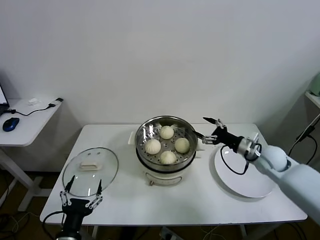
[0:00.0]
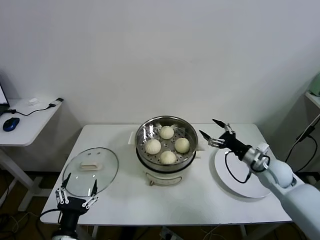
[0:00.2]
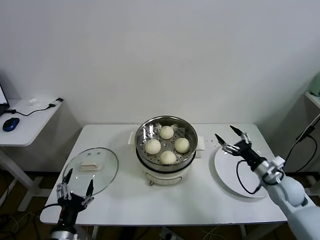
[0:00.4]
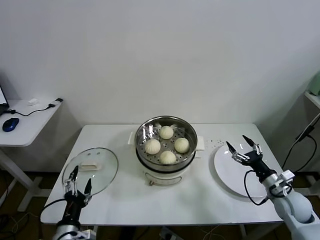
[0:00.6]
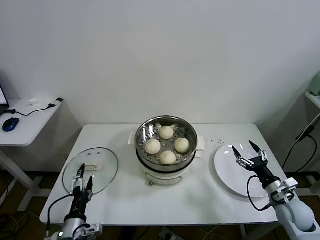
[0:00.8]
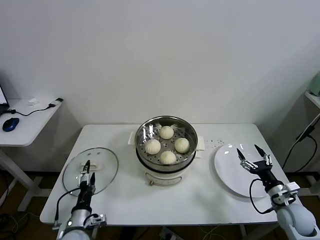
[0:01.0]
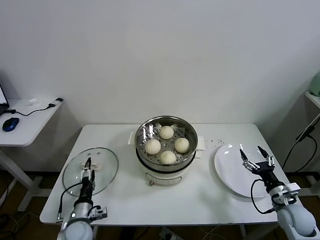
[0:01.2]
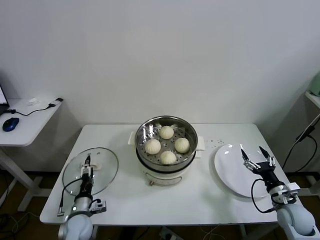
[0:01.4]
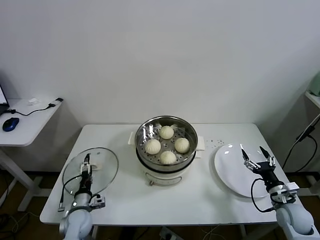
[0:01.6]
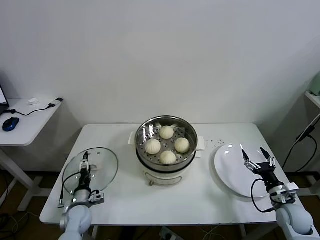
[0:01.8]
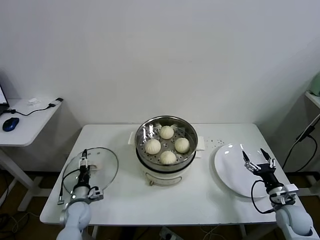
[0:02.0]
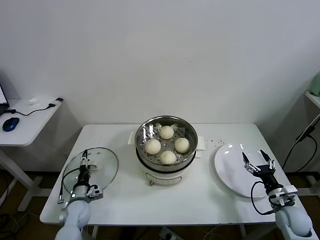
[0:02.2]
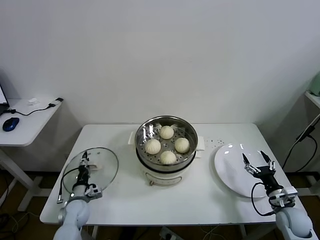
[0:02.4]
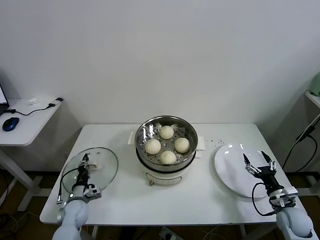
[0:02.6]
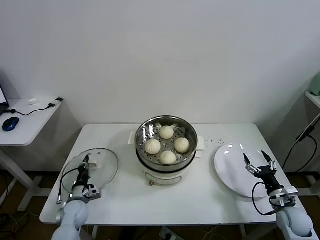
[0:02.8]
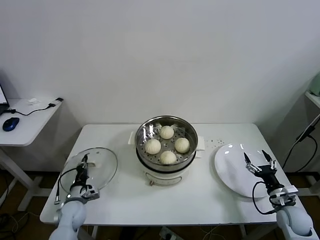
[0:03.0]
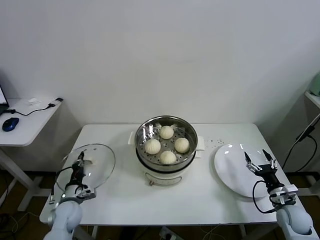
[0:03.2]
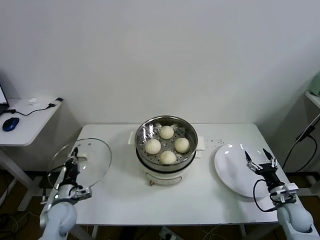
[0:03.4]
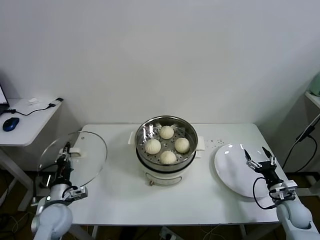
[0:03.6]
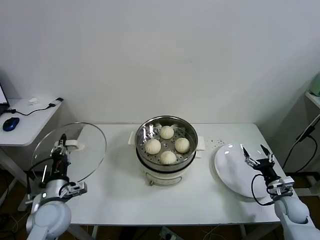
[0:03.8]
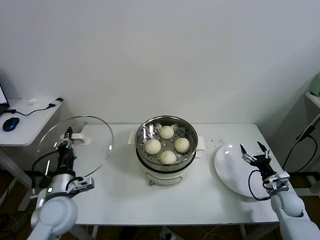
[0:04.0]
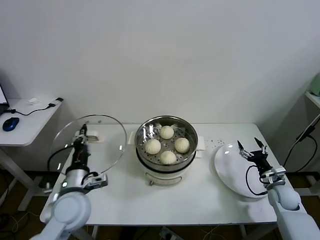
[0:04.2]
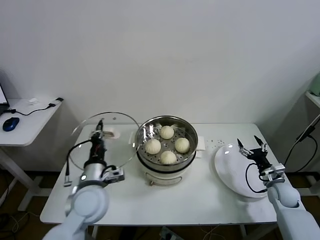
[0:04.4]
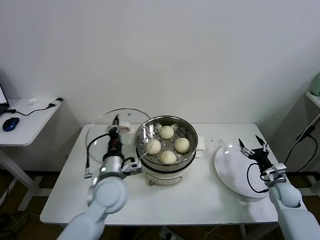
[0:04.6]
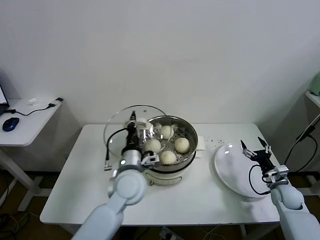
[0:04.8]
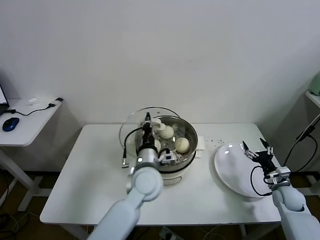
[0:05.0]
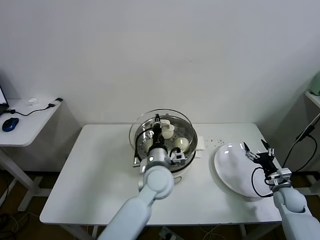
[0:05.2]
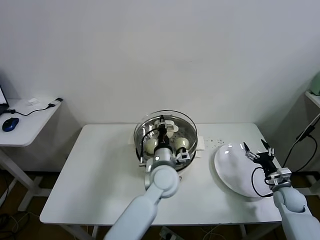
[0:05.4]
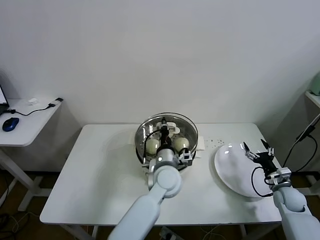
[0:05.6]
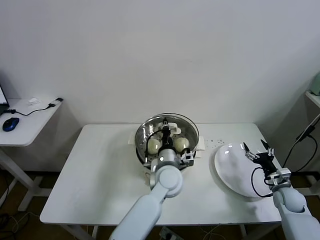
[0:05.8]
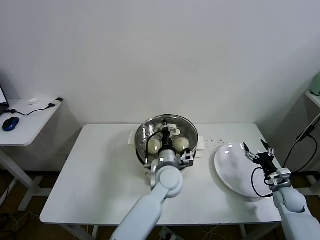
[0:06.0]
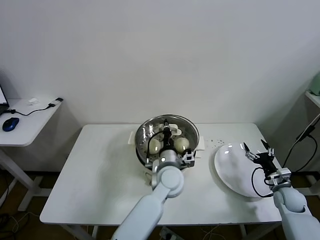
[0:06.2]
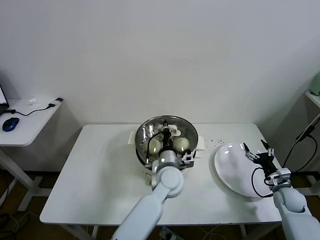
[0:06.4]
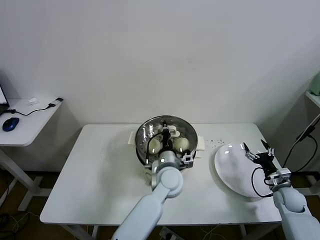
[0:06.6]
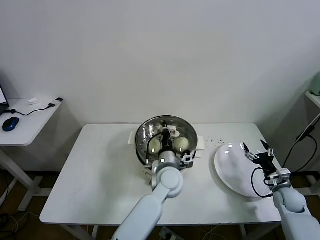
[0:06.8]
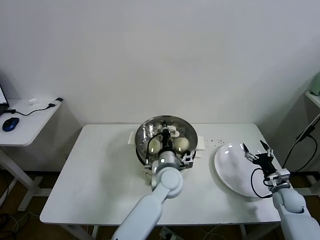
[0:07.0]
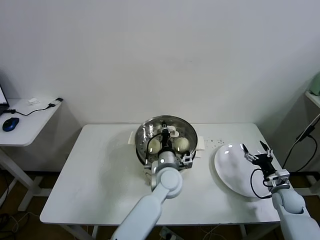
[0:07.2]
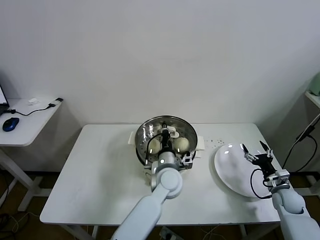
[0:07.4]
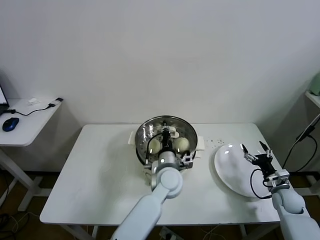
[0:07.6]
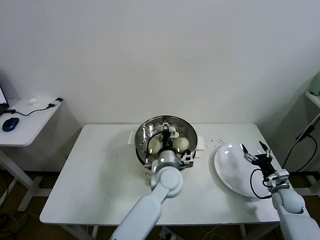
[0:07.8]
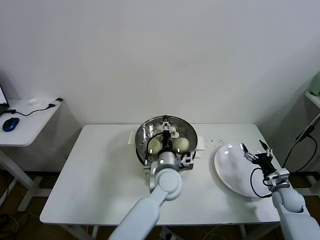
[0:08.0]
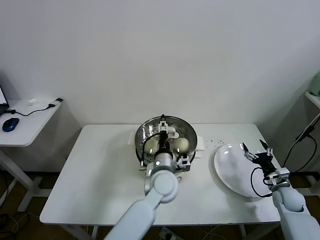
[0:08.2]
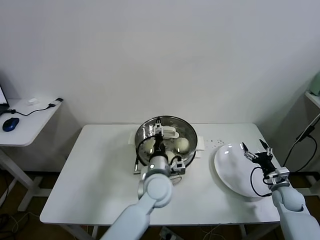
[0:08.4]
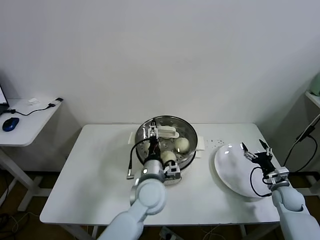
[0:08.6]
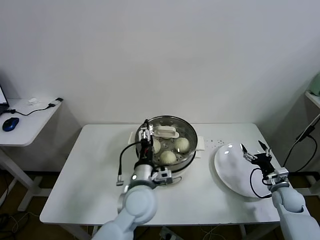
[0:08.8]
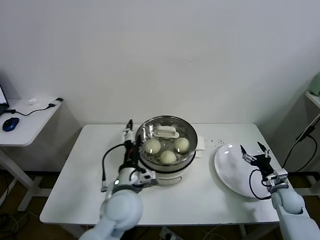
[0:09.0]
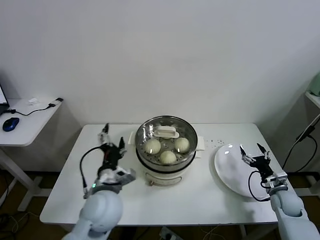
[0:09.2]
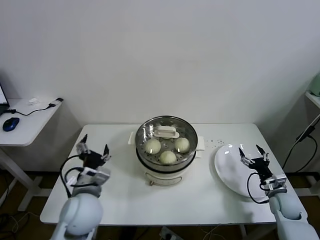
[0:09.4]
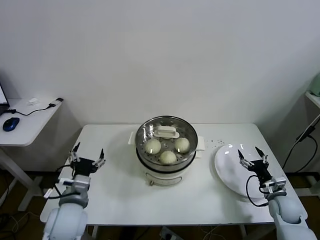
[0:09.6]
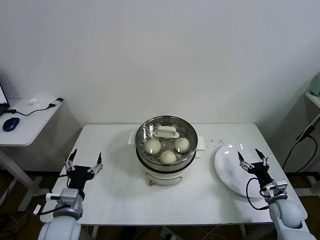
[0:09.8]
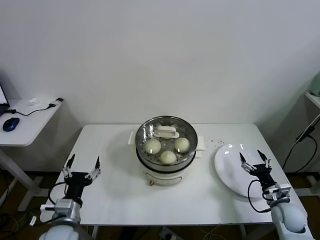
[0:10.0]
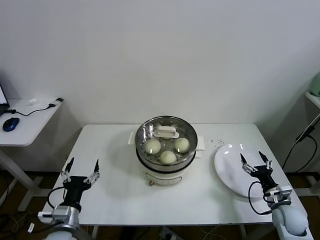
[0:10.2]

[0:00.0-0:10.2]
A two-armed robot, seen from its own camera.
Task of the whole recording: take steamed baozi put them in steamer.
Step, 0:00.0 to 0:02.8: Grasp the pot lid with left gripper.
Step, 0:03.0 to 0:08.0: Place the pot lid on the steamer with left gripper.
0:00.0 to 0:01.4: The right gripper heads backward, downward and to the right, covering some 20 cm, while the left gripper moves forward and downward, approximately 20 cm.
0:01.4 to 0:03.0: The left gripper moves forward, roughly 5 cm, and closes its fingers.
0:03.0 to 0:04.4: The left gripper goes some 25 cm upward and to the right; the right gripper goes some 10 cm forward.
0:04.4 to 0:05.8: The left gripper goes some 25 cm to the right.
0:05.8 to 0:07.2: The grippers make only small movements.
0:07.2 to 0:08.8: The left gripper travels backward and to the left by approximately 10 cm, and opens.
0:08.8 to 0:10.2: The left gripper shifts approximately 25 cm to the left and backward, while the right gripper is displaced backward by roughly 5 cm.

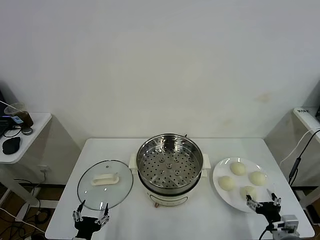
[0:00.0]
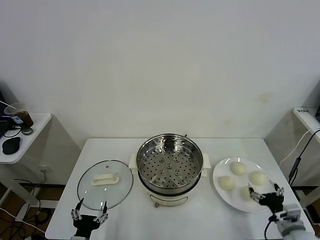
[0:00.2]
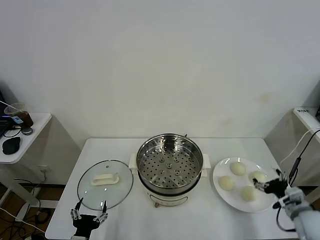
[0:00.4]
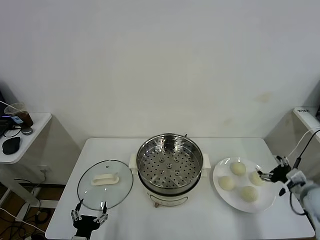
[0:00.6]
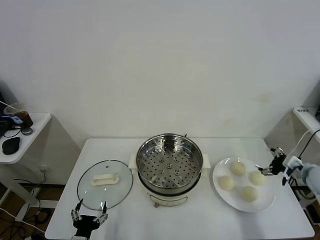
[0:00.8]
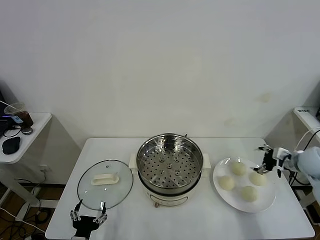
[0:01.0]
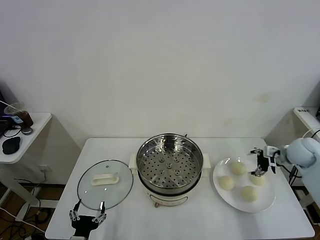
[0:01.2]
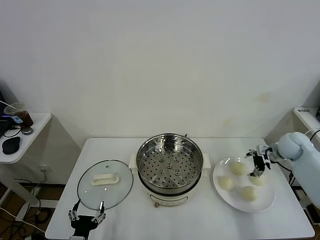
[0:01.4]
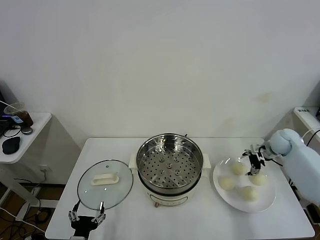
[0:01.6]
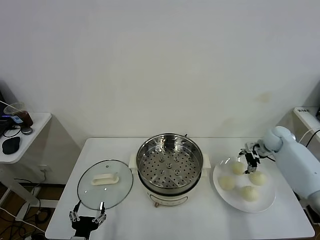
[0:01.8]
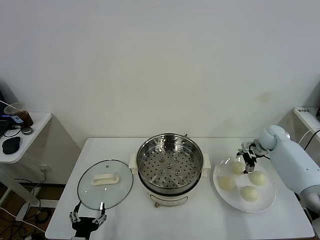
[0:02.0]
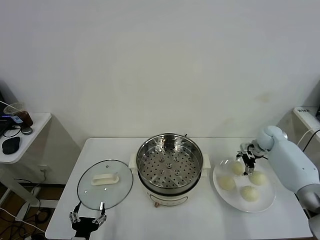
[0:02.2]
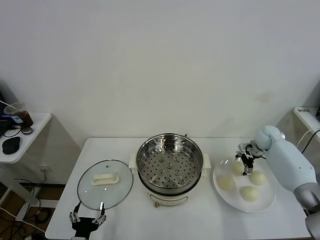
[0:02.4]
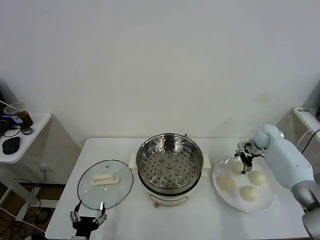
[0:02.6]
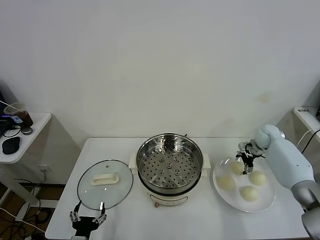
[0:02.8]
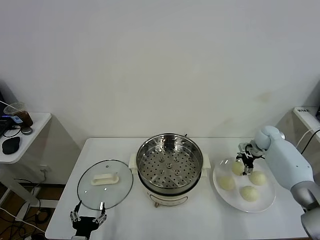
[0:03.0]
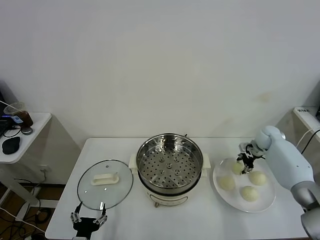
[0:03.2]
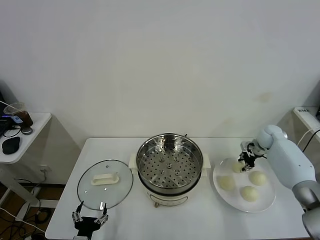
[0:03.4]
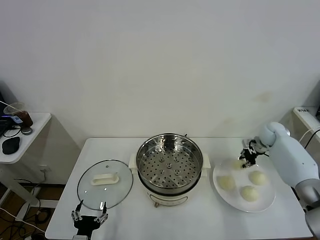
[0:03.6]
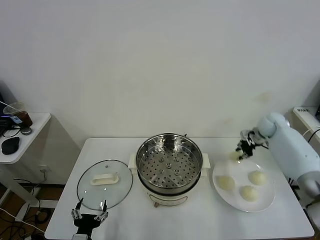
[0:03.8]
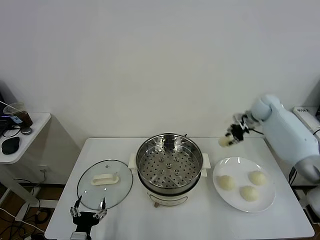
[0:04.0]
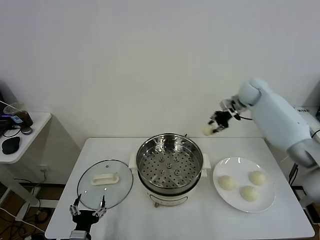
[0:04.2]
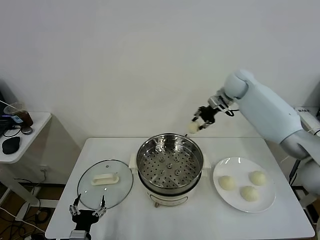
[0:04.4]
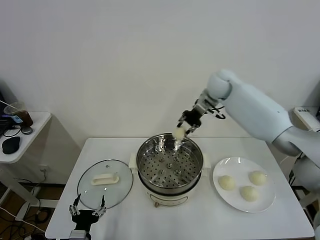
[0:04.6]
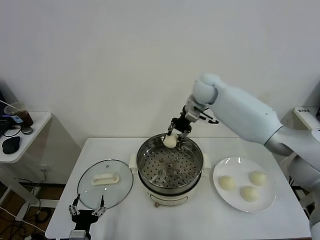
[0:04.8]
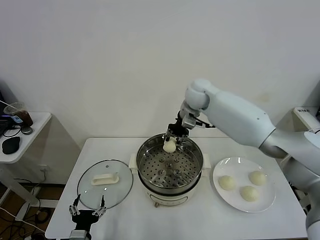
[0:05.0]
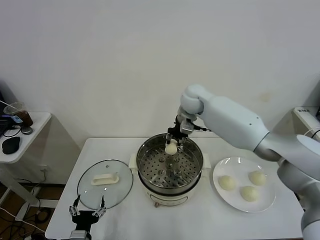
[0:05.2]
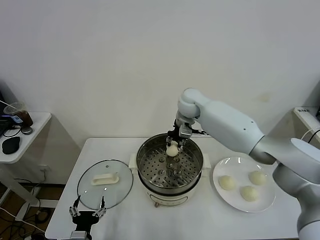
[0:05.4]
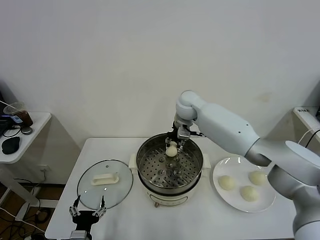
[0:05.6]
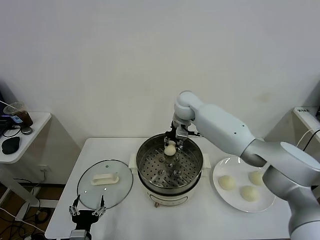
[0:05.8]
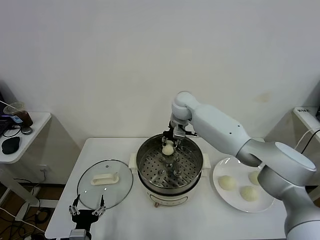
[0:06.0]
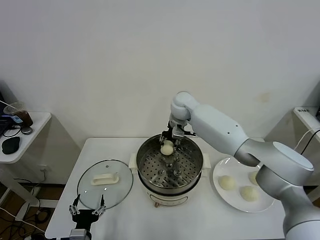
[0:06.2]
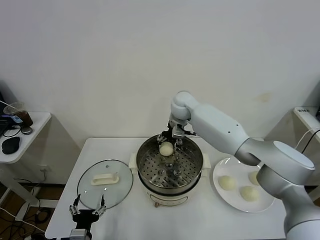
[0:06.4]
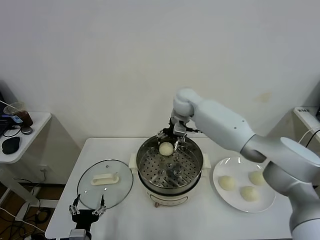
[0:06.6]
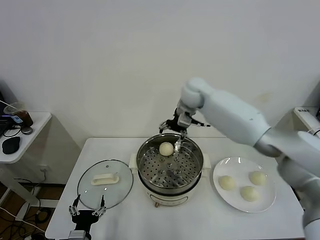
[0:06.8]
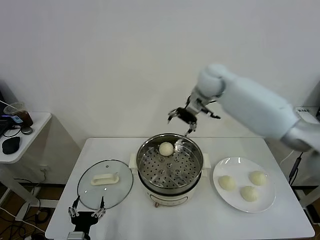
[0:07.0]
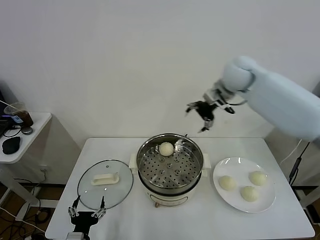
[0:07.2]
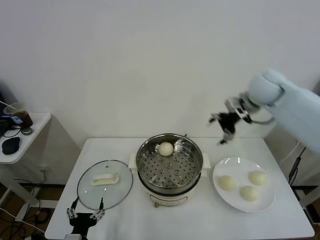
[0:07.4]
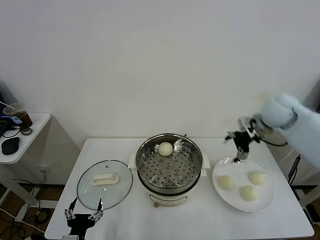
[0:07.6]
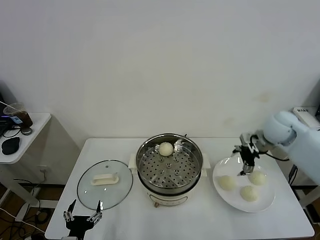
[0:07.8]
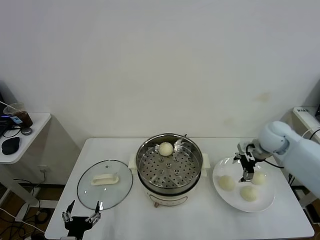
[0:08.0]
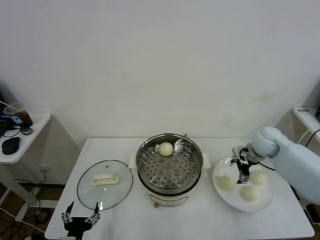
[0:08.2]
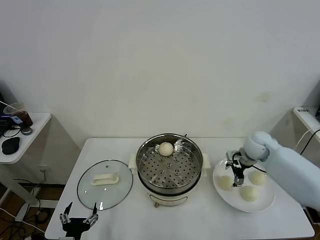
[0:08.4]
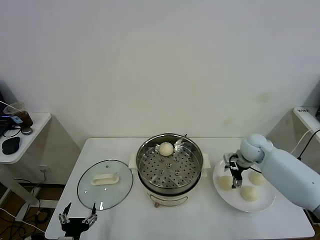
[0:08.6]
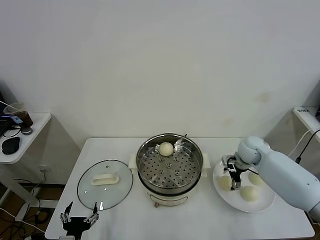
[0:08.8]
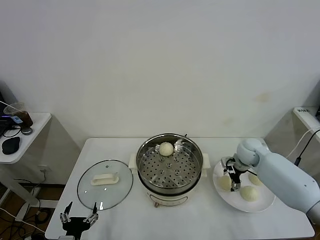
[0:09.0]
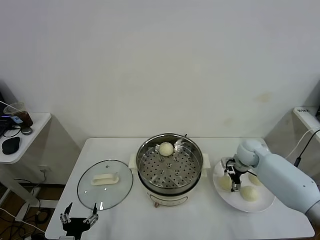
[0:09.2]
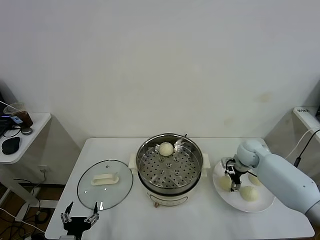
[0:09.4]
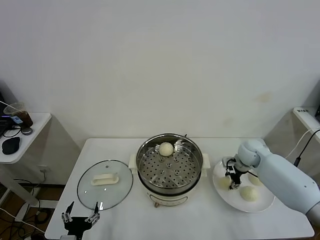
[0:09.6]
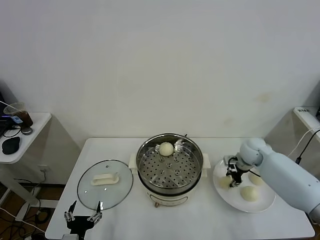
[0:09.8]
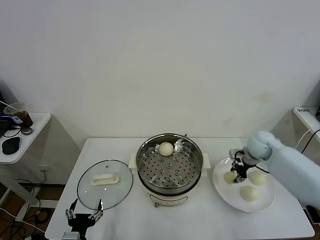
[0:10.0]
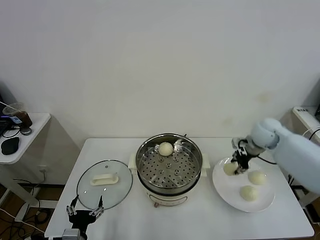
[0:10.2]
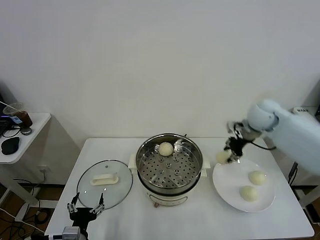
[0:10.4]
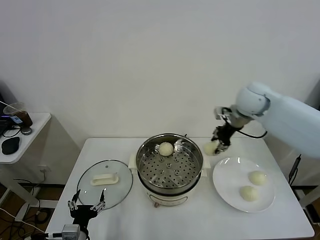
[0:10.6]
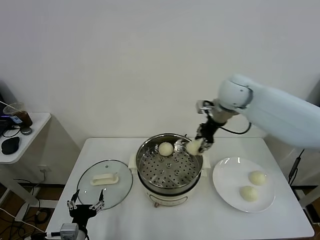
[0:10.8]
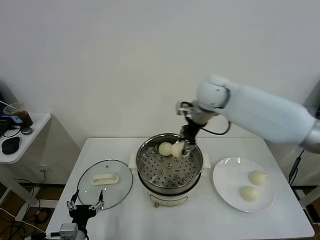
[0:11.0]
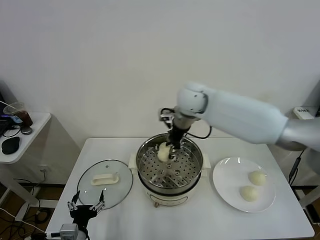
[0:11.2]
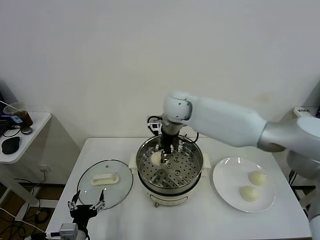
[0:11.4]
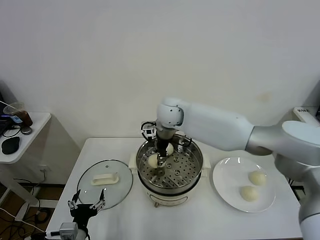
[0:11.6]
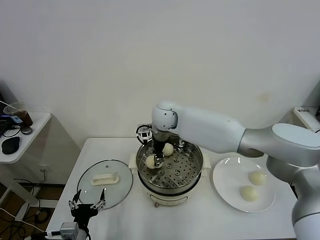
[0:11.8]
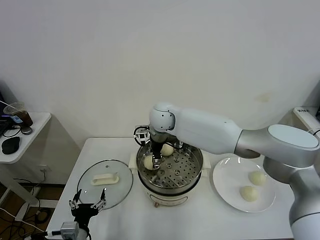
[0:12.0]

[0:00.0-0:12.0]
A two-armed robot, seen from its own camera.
Task of the whole recording: take steamed baozi put them in steamer.
Step, 0:00.0 to 0:03.4: Grasp the baozi in the plate with right gripper.
Step, 0:03.6 to 0:06.6: Place the baozi on the steamer with right gripper.
Step, 0:06.8 to 0:09.6: Grasp the baozi in the plate with right gripper.
0:01.6 to 0:03.0: The right gripper shifts by approximately 5 cm, and closes.
0:03.0 to 0:04.4: The right gripper travels upward and to the left by some 30 cm, and closes its fingers.
0:04.4 to 0:06.0: The right gripper heads to the left and downward, covering roughly 20 cm.
0:06.0 to 0:07.6: The right gripper is displaced to the right by about 30 cm, and opens its fingers.
0:07.6 to 0:09.0: The right gripper heads downward, covering roughly 20 cm.
0:09.0 to 0:10.4: The right gripper heads upward, covering roughly 15 cm, and closes.
0:10.4 to 0:12.0: The right gripper is displaced to the left by approximately 30 cm, and opens its fingers.
